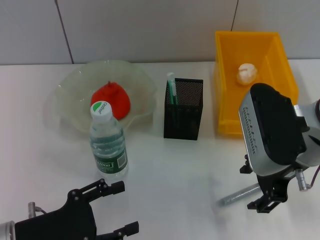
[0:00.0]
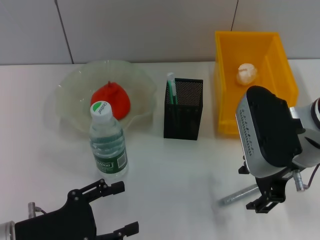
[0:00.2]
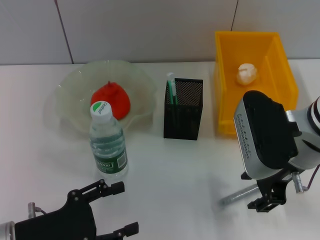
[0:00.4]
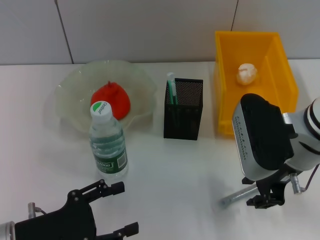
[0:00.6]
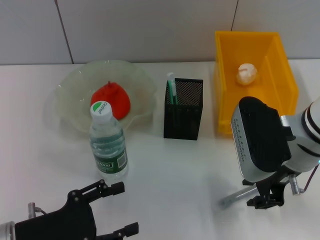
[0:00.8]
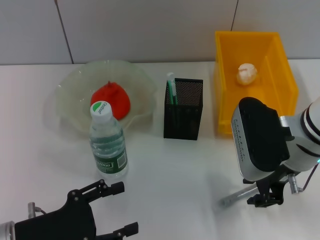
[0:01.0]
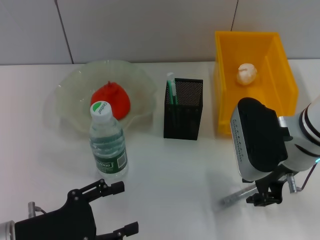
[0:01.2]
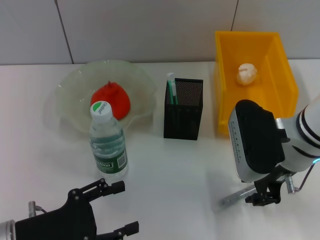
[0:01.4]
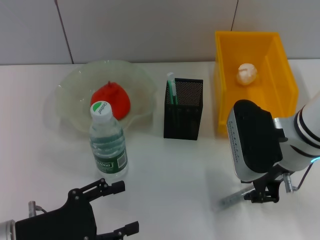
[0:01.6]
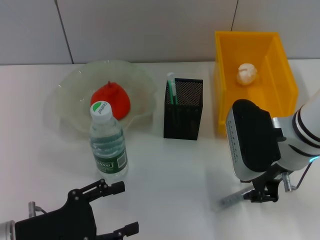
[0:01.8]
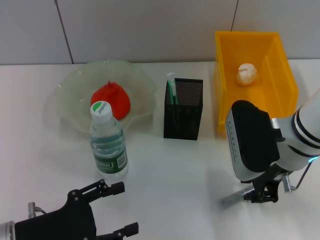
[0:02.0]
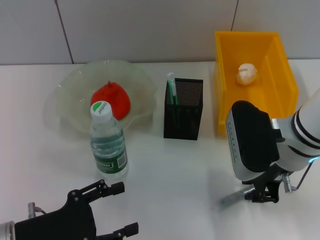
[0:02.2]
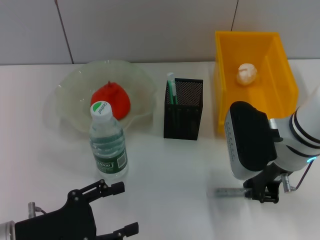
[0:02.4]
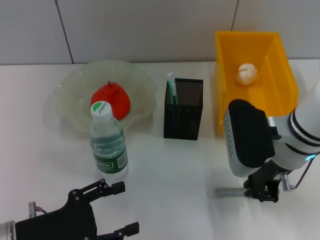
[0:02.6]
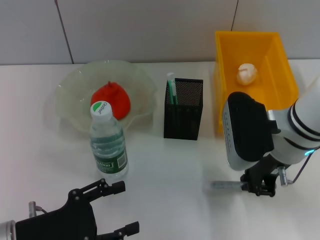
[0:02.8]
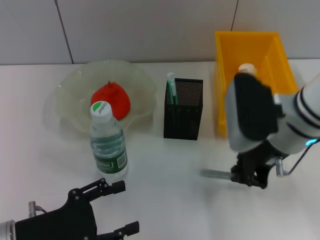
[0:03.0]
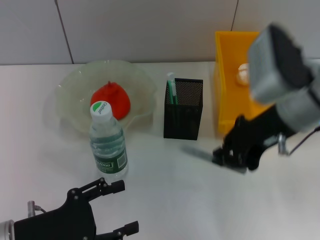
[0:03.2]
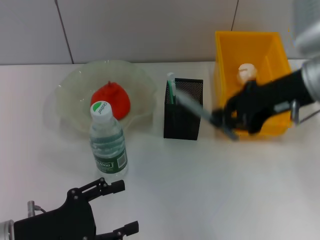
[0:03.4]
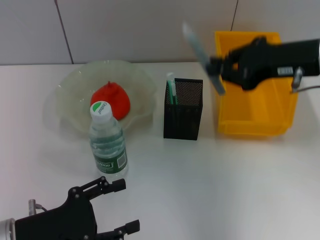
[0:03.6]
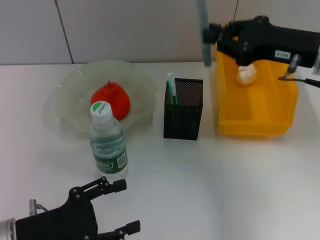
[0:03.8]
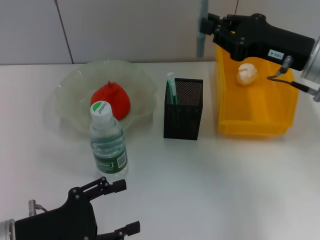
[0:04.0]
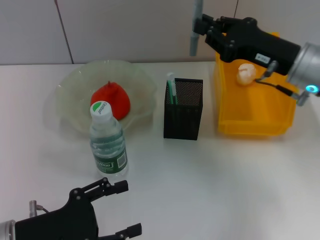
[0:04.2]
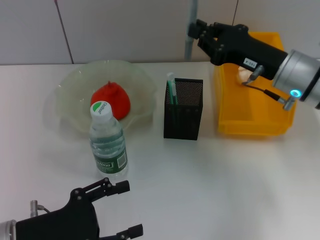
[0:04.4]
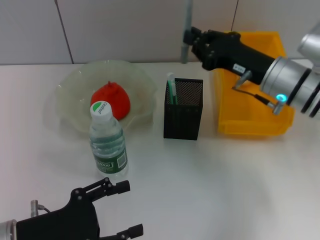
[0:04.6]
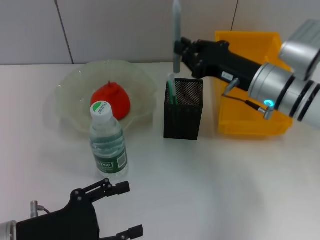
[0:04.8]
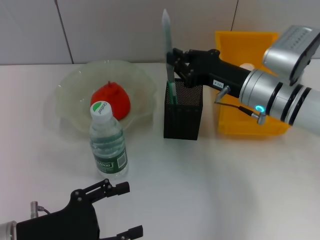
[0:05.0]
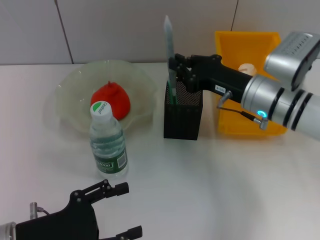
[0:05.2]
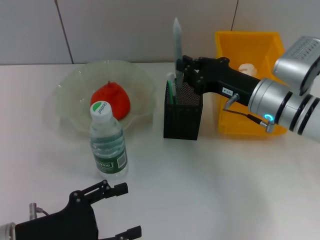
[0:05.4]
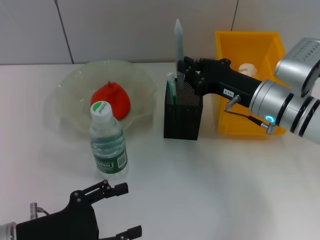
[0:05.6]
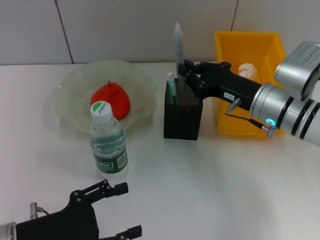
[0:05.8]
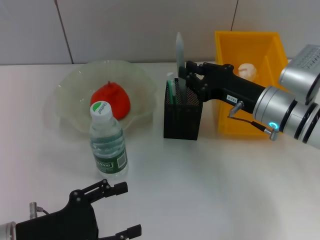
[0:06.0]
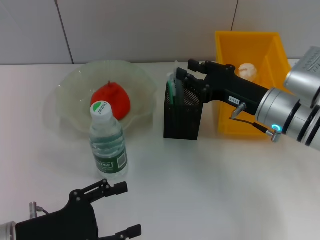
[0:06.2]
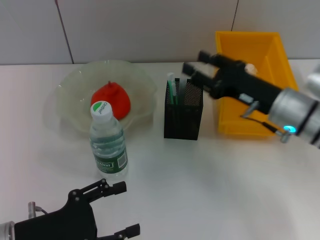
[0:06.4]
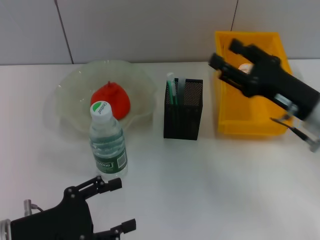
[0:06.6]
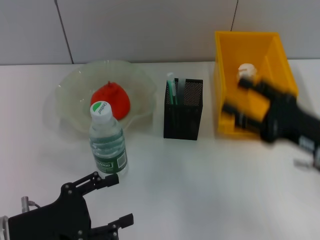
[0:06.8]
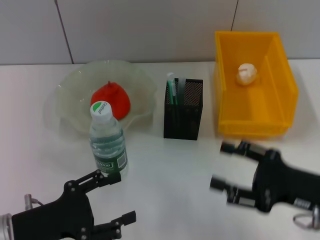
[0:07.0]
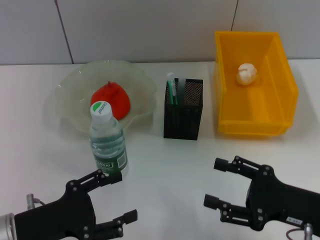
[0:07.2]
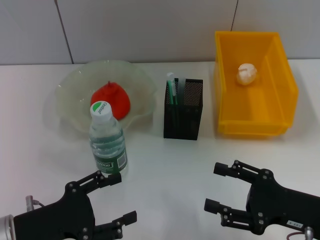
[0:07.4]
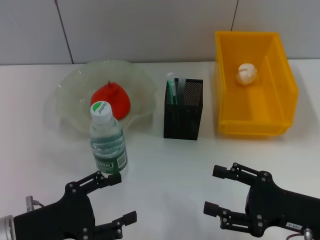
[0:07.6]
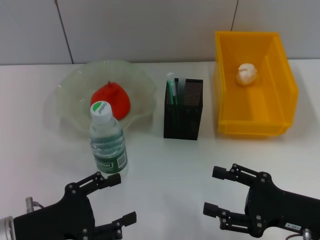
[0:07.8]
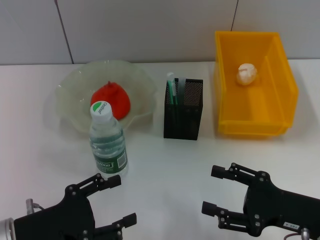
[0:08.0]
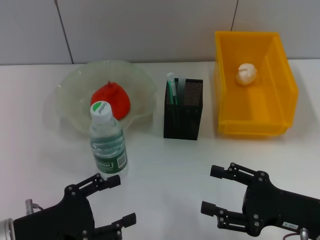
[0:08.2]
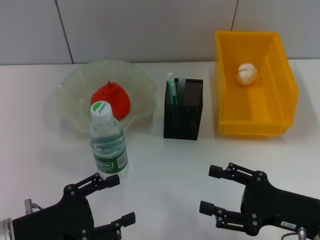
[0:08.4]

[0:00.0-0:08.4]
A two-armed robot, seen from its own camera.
Step, 0:00.0 to 0:02.4: Grab the gray glue with the right hand.
Step, 0:02.6 to 0:06.2: Place the gray glue into the pen holder with the right hand.
0:00.0 to 0:01.4: The right gripper closes.
0:01.4 to 0:02.8: The right gripper closes up.
0:02.8 to 0:04.2: The right gripper is displaced to the right by some 5 cm, and reaches approximately 10 cm upward, then returns.
0:04.2 to 0:05.6: The right gripper shifts some 5 cm downward.
0:05.6 to 0:07.0: The right gripper shifts approximately 15 cm backward and to the right, and opens its fingers.
0:07.0 to 0:08.4: The grippers move only a little.
